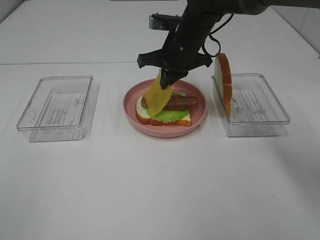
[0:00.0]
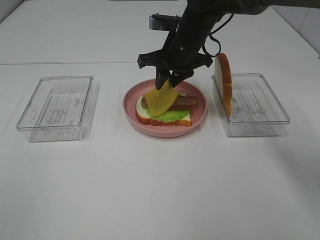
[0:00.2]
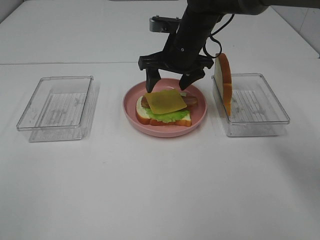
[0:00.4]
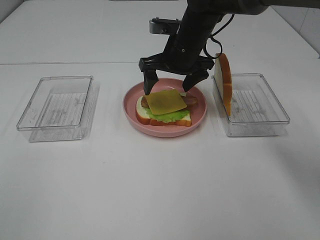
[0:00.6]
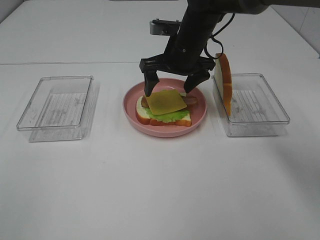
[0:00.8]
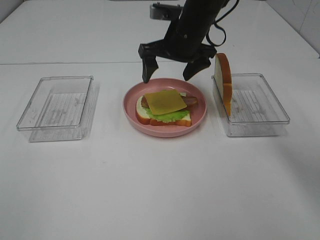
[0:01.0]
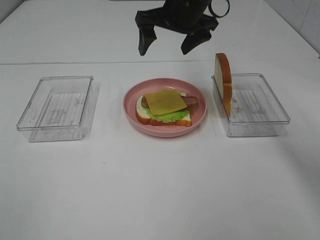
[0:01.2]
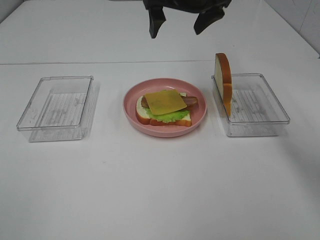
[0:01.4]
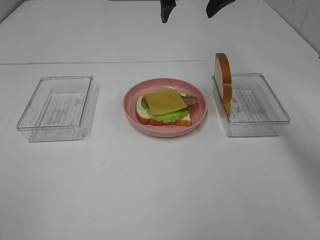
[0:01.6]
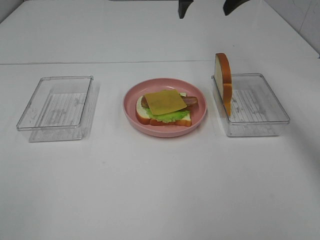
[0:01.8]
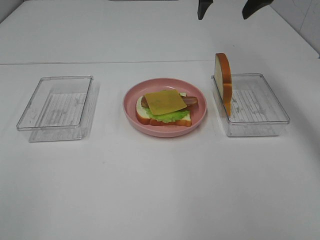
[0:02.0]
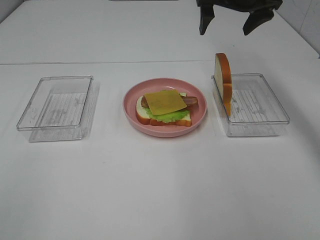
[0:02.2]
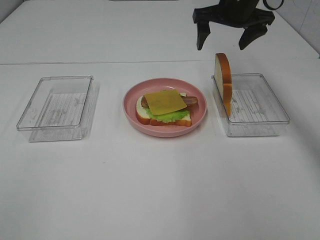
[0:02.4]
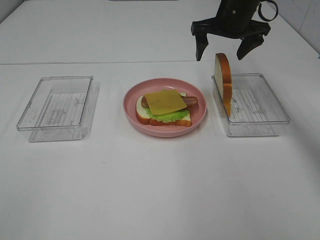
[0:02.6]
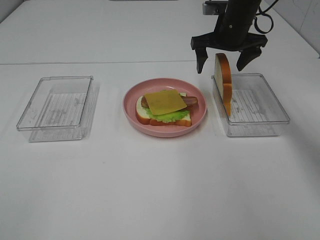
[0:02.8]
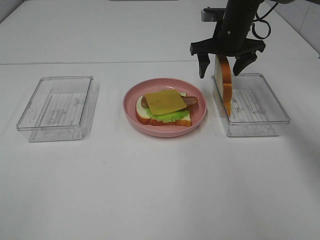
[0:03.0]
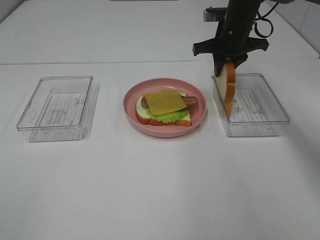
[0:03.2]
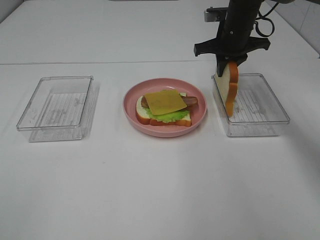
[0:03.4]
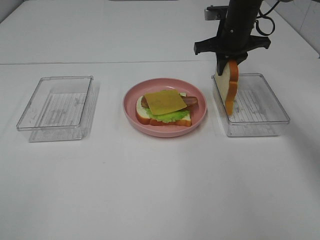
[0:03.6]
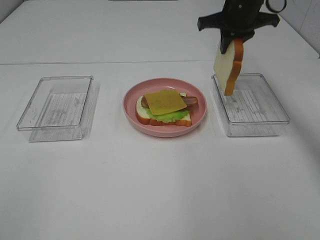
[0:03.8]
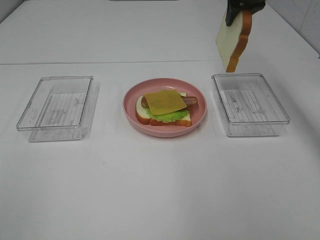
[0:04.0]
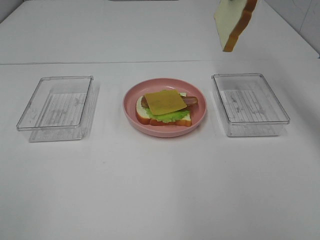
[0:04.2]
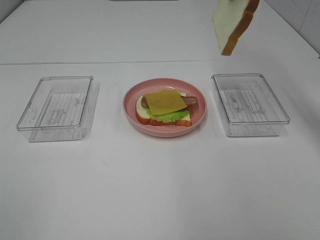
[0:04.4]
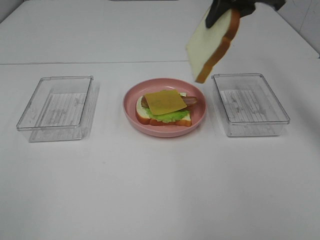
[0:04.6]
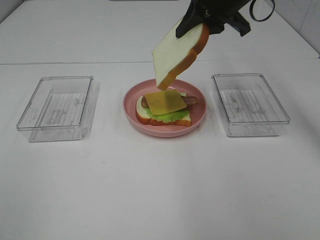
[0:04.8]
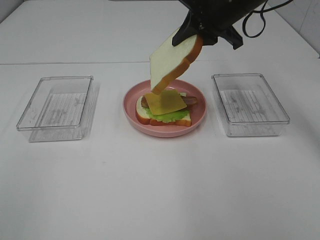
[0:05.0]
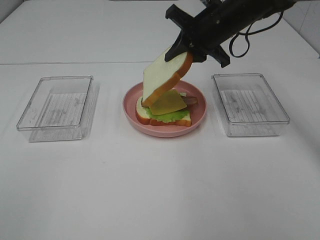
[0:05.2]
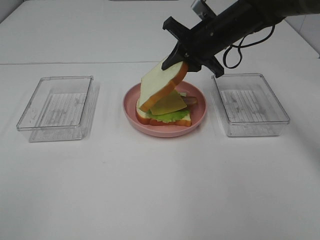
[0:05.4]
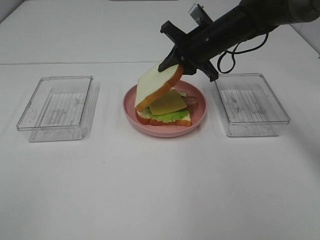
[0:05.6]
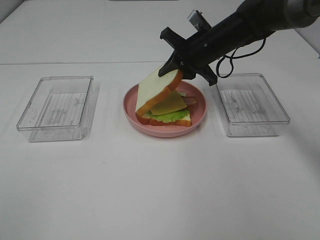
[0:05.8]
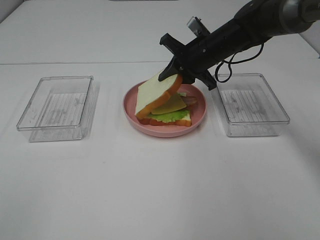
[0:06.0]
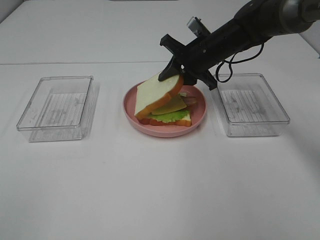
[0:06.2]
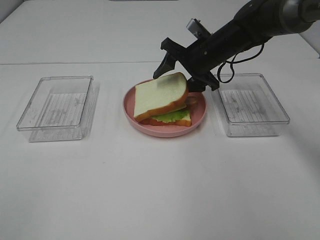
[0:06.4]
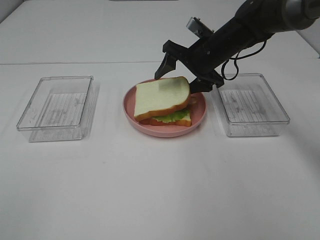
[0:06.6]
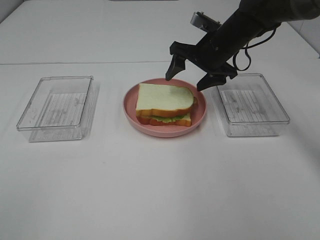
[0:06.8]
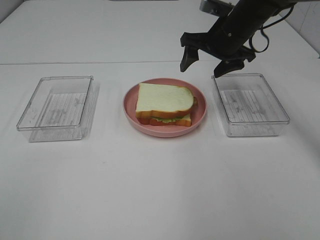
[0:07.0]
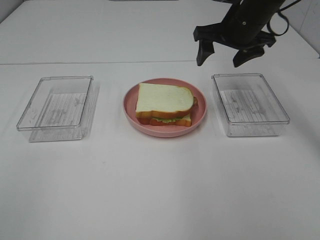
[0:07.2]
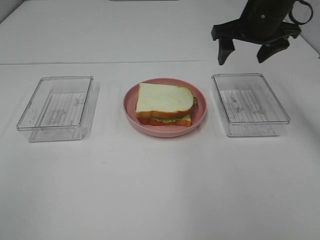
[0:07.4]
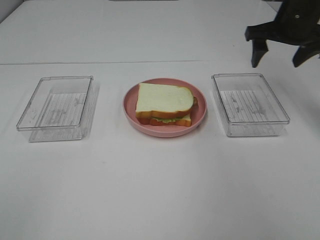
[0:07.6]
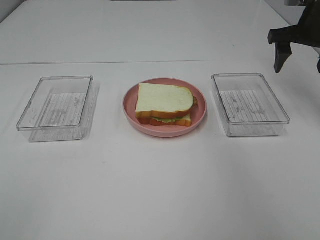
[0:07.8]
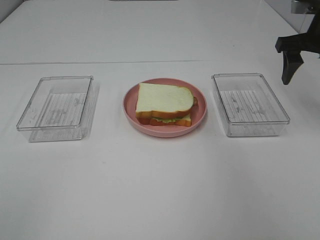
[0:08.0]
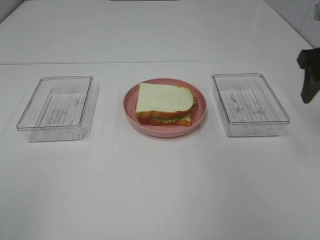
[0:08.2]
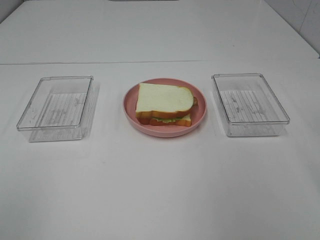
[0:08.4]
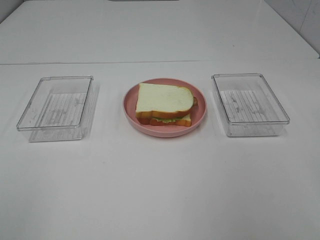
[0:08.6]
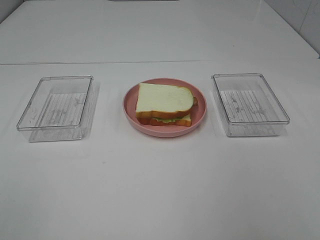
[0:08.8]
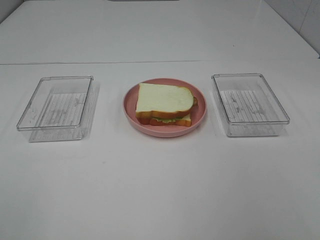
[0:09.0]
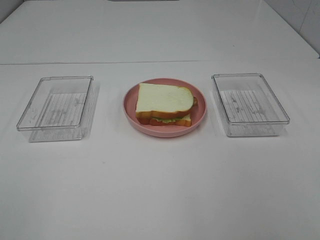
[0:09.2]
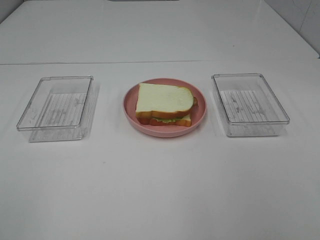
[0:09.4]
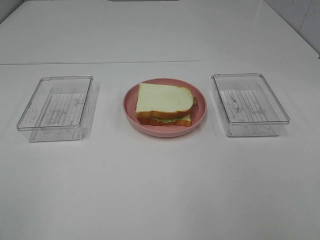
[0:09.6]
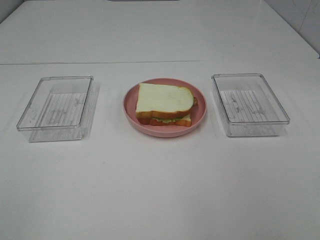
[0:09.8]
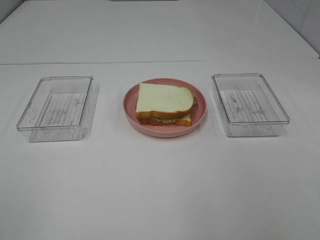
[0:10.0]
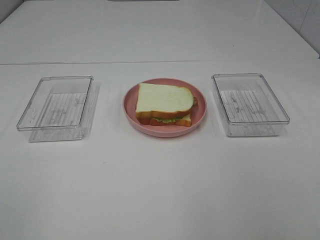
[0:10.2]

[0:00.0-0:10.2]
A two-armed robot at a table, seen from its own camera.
Task of the whole recording: Make sandwiches.
Step, 0:00.6 to 0:03.6: Right hand:grab the bread slice.
Step, 0:03.8 to 0:06.8: Right hand:place the bread slice on the cheese slice.
0:00.0 to 0:01.4: The right gripper is displaced upward by approximately 10 cm, and opens its fingers.
0:01.4 to 0:03.0: The right gripper moves downward, to the right and forward, some 15 cm.
0:03.0 to 0:04.4: The right gripper goes about 20 cm upward and backward, and closes.
0:04.4 to 0:05.8: The right gripper travels downward by about 20 cm.
0:05.8 to 0:07.2: The right gripper heads upward and to the right, covering some 10 cm, and opens its fingers.
0:07.2 to 0:08.8: The right gripper shifts roughly 35 cm backward.

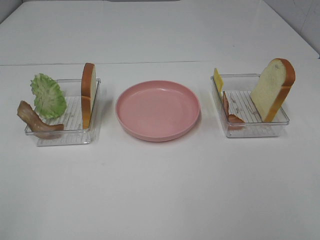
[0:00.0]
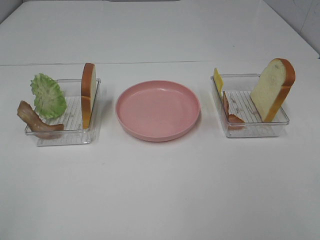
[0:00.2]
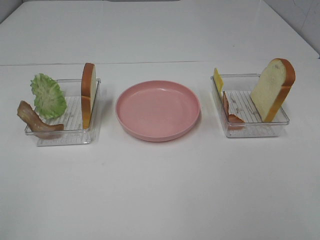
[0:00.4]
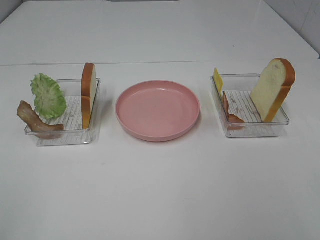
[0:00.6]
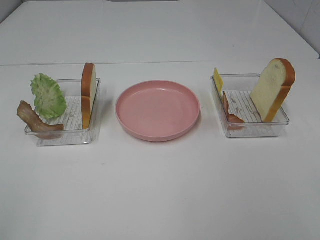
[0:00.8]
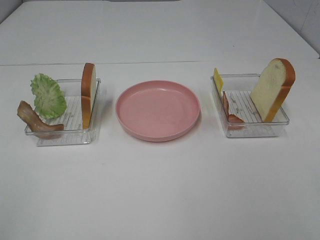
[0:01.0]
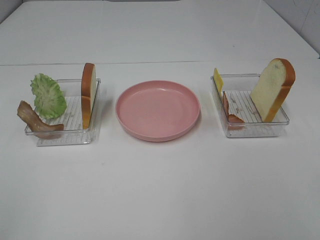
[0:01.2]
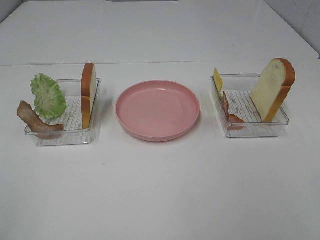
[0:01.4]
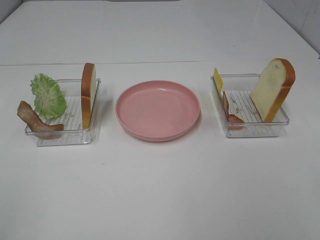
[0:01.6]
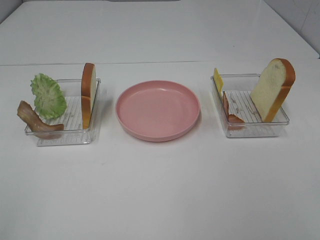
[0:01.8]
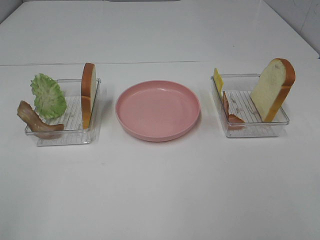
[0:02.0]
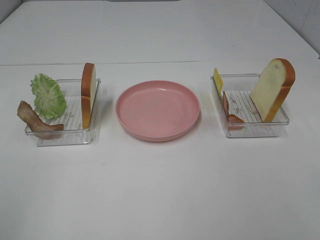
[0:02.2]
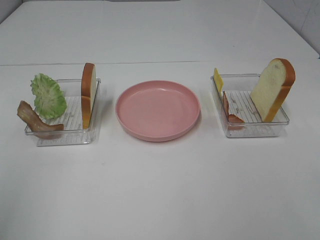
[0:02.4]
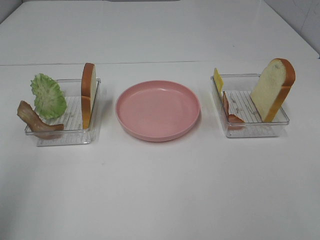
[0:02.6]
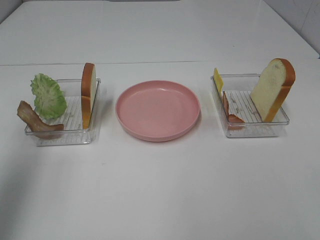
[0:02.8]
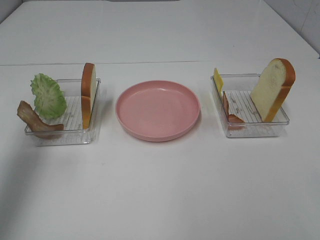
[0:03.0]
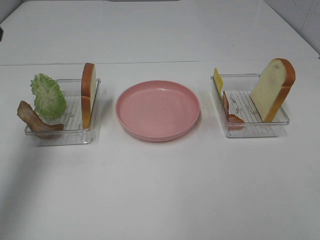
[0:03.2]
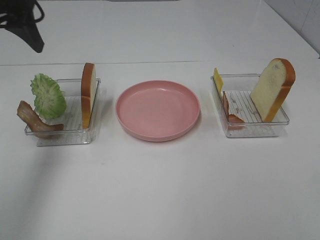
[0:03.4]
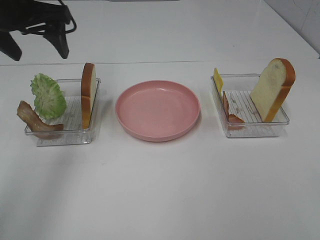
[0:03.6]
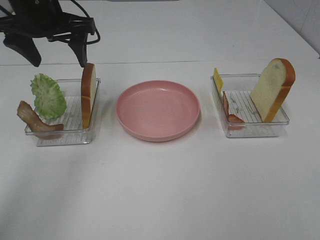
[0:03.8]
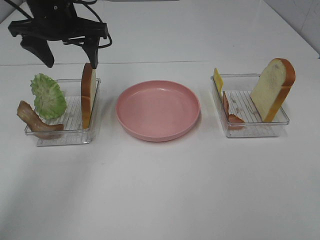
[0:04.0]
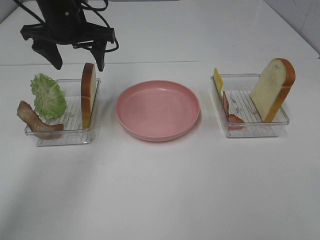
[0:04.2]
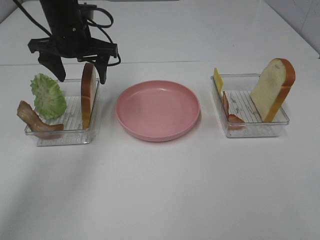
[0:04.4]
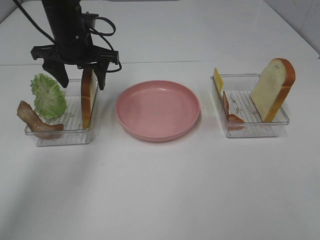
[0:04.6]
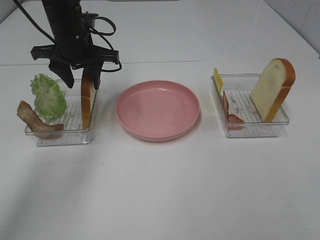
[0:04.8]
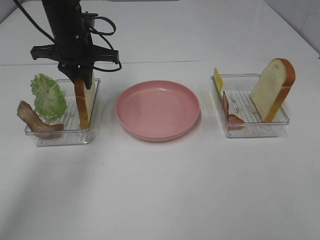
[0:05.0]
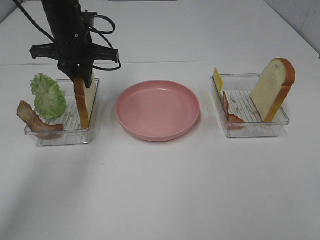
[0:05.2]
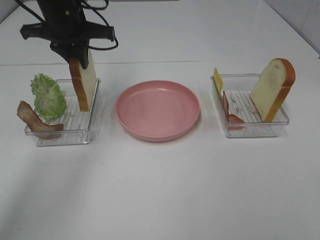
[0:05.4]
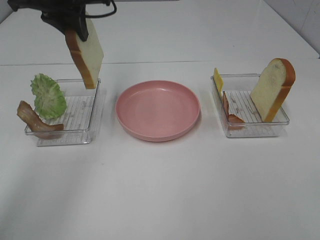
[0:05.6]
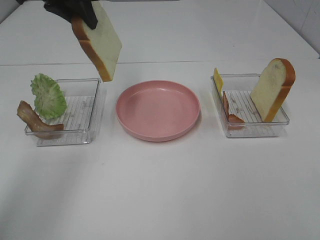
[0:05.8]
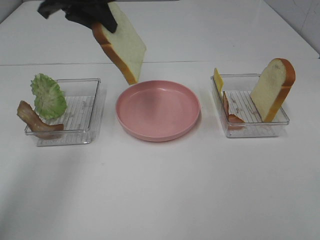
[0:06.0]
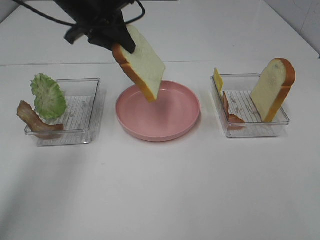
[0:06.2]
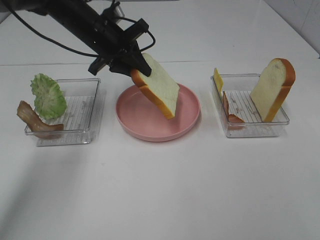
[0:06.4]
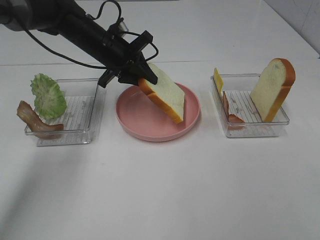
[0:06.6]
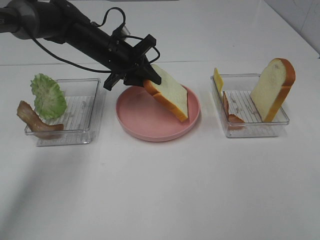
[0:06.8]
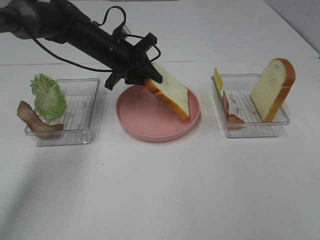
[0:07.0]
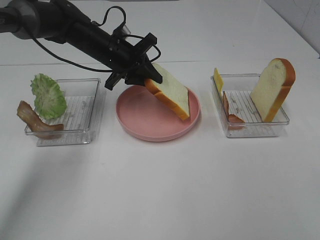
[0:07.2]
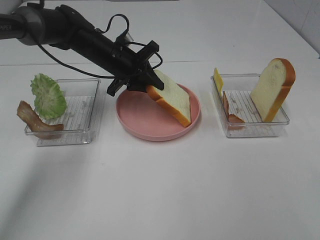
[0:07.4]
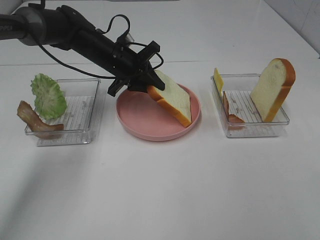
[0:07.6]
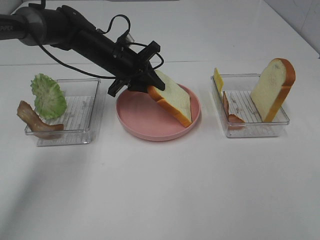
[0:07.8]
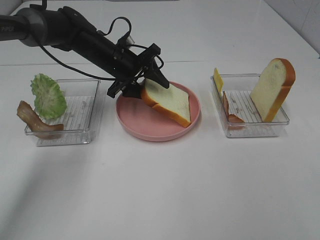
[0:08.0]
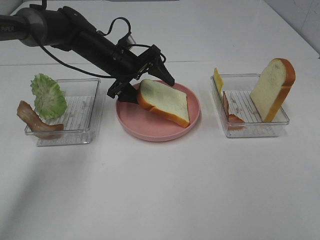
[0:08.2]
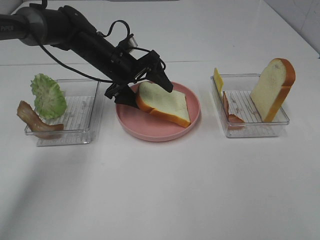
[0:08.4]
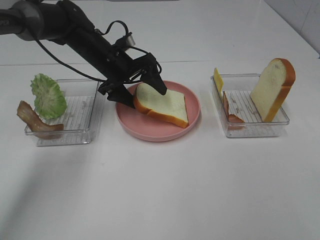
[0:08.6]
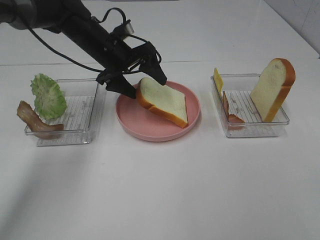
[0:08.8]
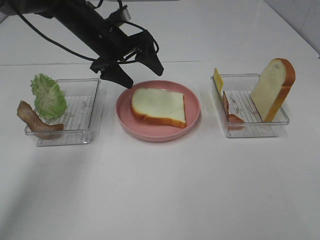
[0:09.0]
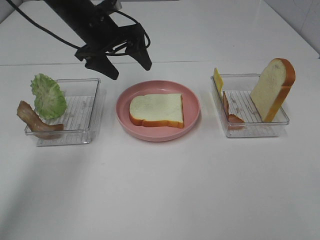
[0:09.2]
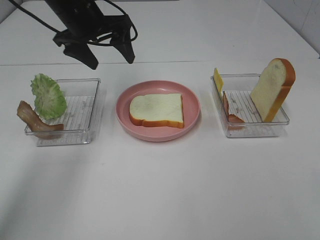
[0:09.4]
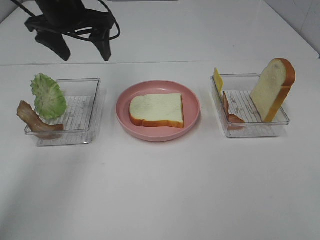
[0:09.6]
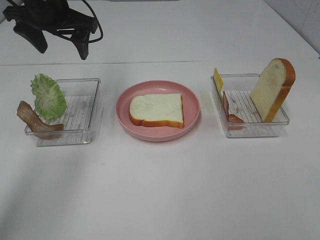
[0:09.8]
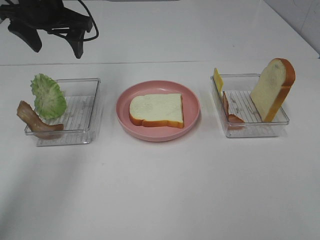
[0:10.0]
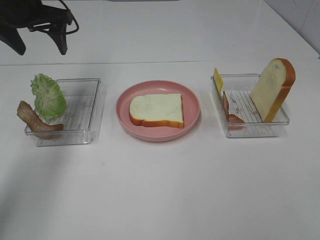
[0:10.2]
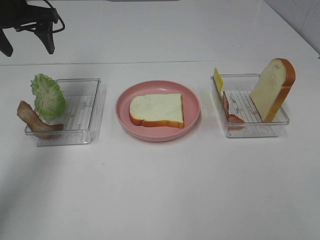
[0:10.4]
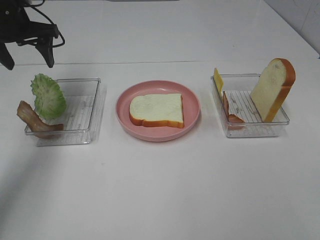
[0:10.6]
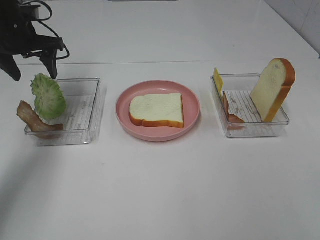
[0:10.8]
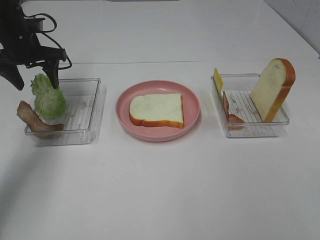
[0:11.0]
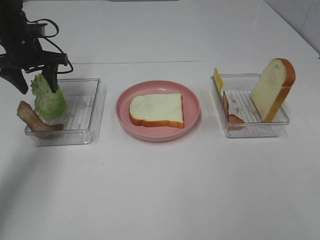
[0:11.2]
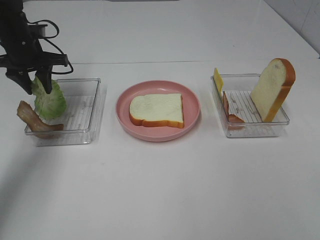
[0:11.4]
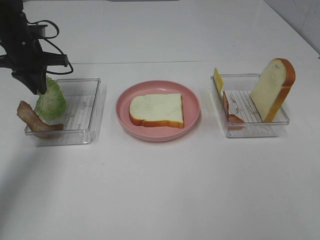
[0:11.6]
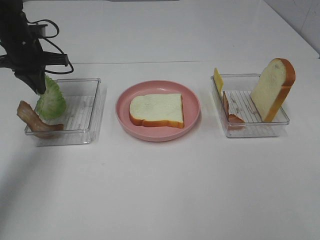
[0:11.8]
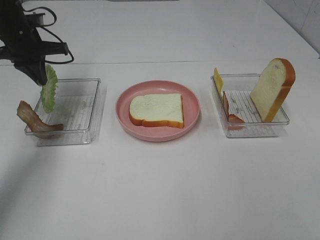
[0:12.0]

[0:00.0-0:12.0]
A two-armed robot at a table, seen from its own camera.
Task of the whole recording: Make sandwiches.
Step, 0:00.0 to 0:05.2: Left hand:grab the bread slice.
Step, 0:05.4 to 0:09.0: Left hand:place the bread slice on the plate.
Step, 0:09.2 to 0:11.6: Left hand:grab the lettuce slice.
0:00.0 to 0:01.6: Both grippers stay put.
0:01.6 to 0:03.0: The left gripper shifts some 25 cm forward.
0:03.0 to 0:04.4: The left gripper travels forward, to the right and downward by some 30 cm.
0:04.4 to 0:06.0: The left gripper travels upward by roughly 10 cm, and closes its fingers.
0:06.0 to 0:07.6: The left gripper goes some 20 cm downward.
0:07.6 to 0:09.0: The left gripper is displaced upward by approximately 5 cm, and opens up.
0:09.0 to 0:10.4: The left gripper is displaced to the left and upward by roughly 15 cm.
0:10.4 to 0:12.0: The left gripper moves downward, about 5 cm, and closes up.
